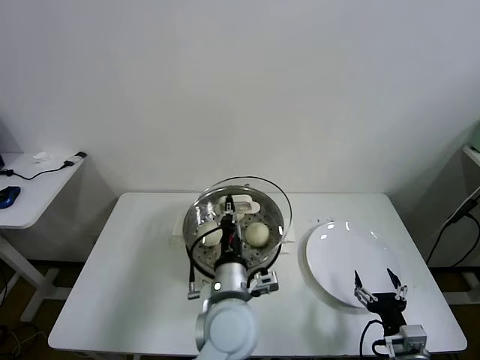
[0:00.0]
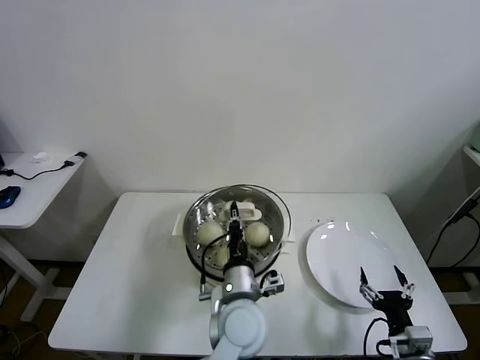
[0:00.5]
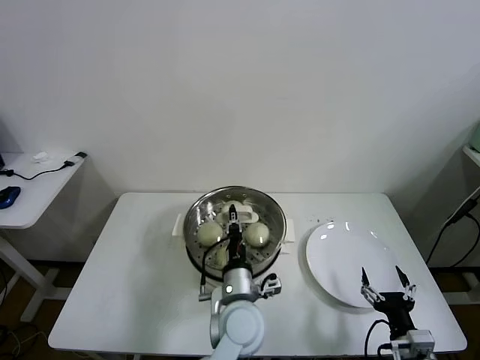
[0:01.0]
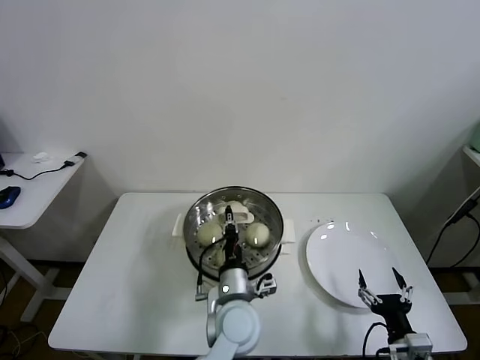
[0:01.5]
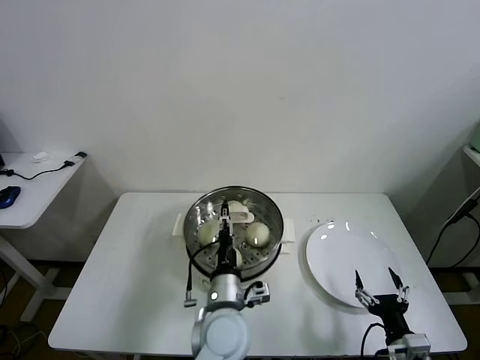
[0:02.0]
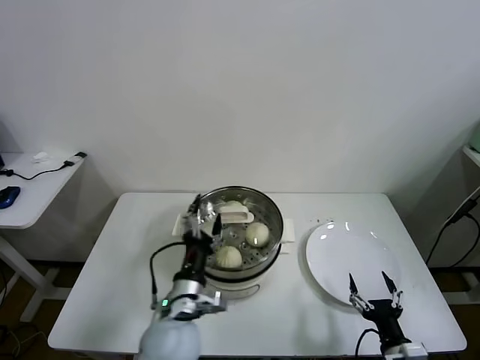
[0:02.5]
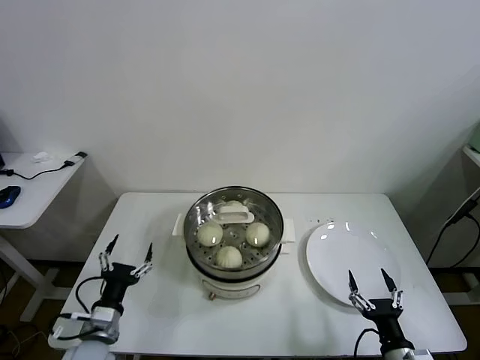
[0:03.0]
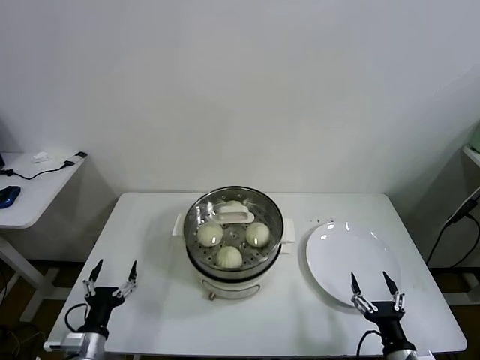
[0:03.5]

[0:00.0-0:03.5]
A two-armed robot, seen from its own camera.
Task of the whole recording: take steamed baozi put them in steamer.
Step, 0:00.0 to 0:02.0: Place the pot lid on the steamer with left gripper.
0:00.0 to 0:02.0: The left gripper is displaced downward by about 5 cm, and opens its fingers.
0:02.0 to 0:03.5: The left gripper goes some 30 cm to the left, and opens.
